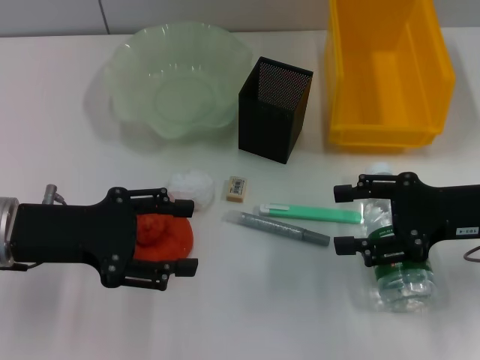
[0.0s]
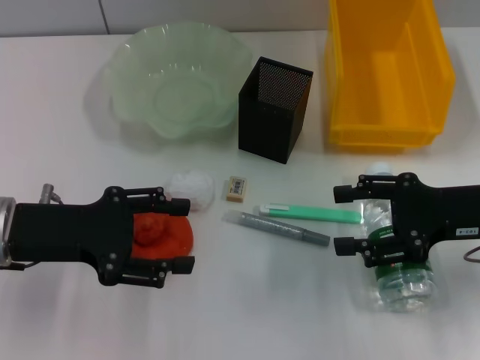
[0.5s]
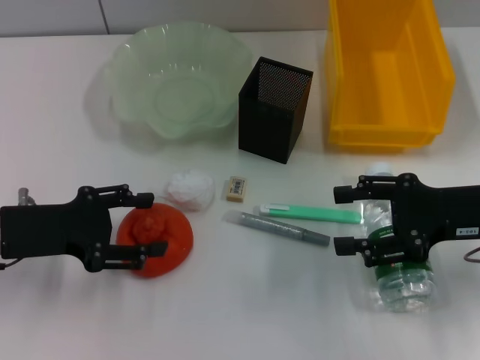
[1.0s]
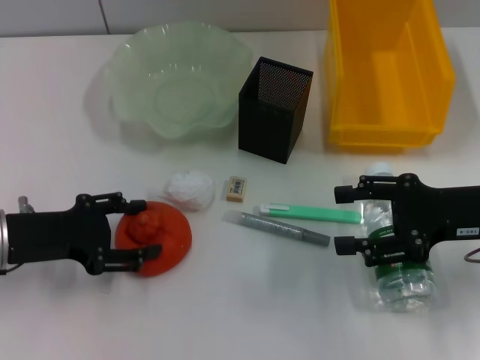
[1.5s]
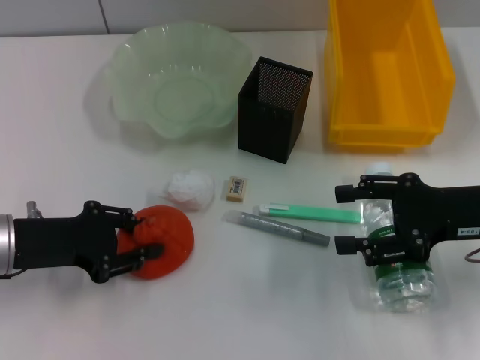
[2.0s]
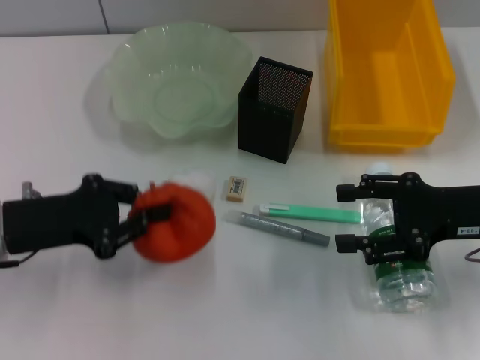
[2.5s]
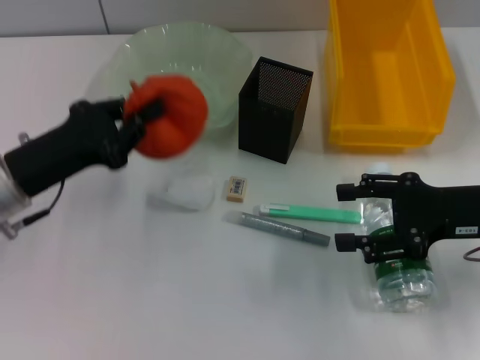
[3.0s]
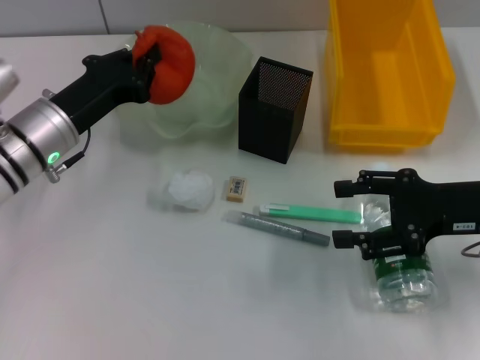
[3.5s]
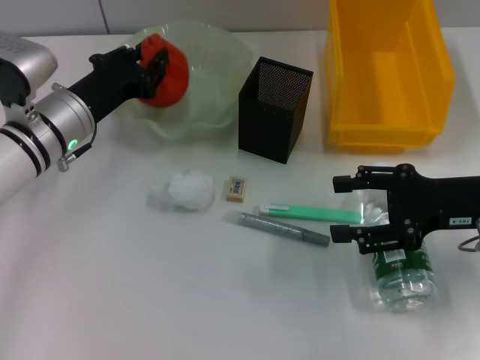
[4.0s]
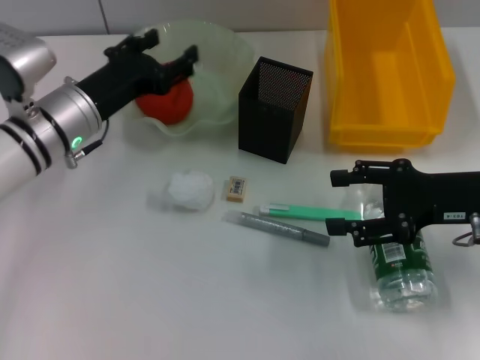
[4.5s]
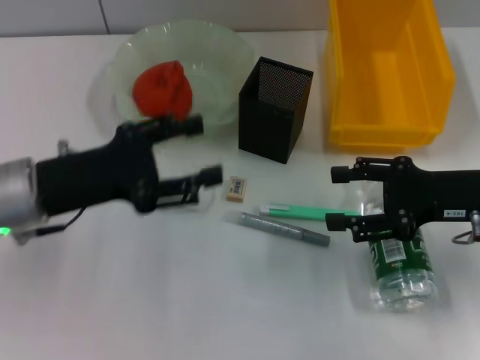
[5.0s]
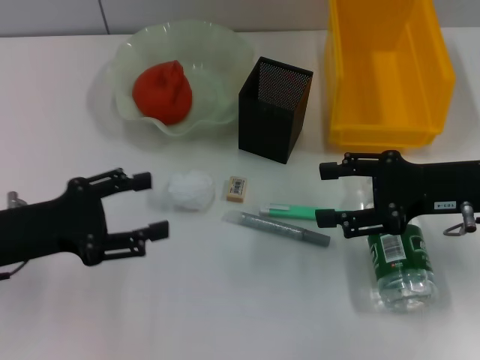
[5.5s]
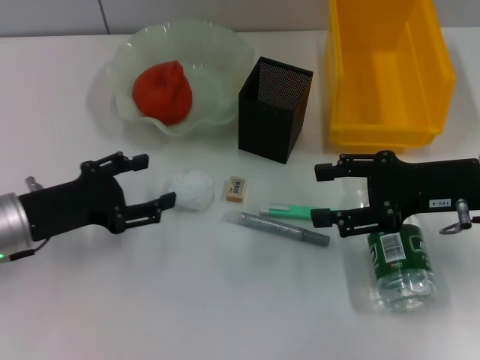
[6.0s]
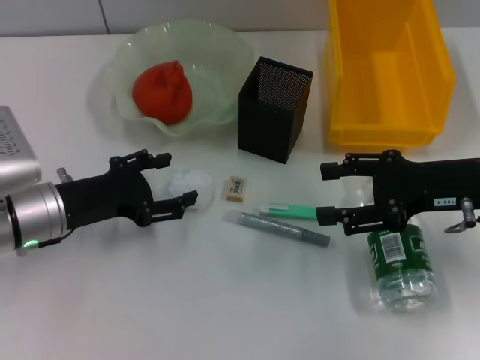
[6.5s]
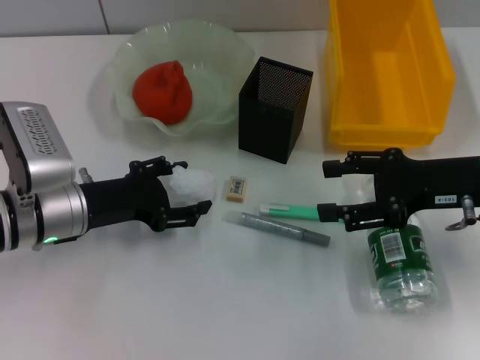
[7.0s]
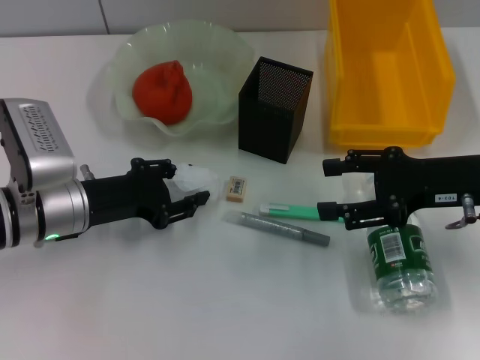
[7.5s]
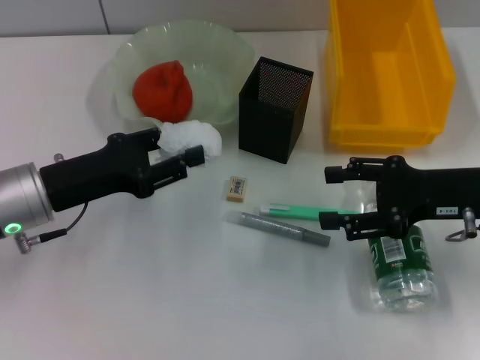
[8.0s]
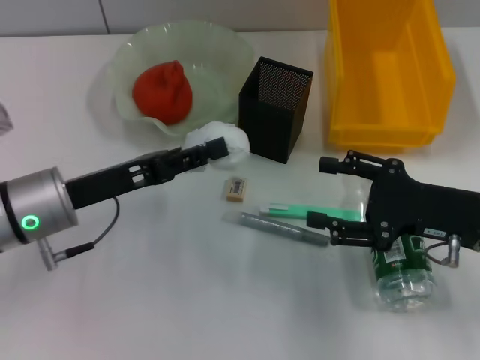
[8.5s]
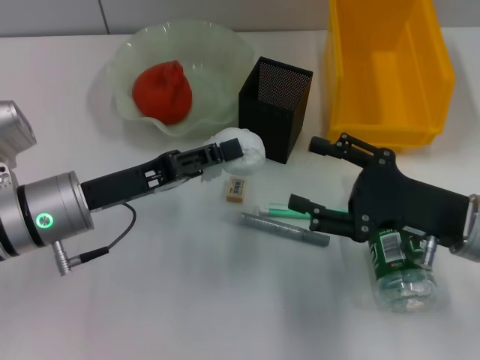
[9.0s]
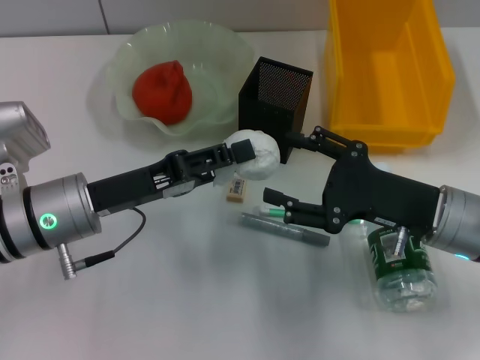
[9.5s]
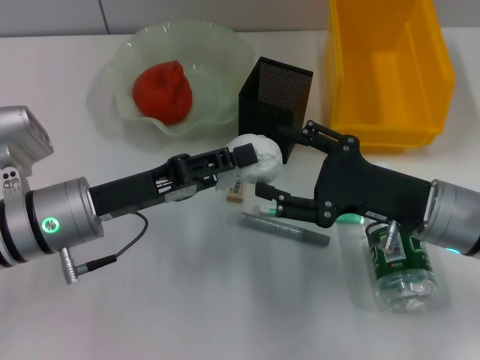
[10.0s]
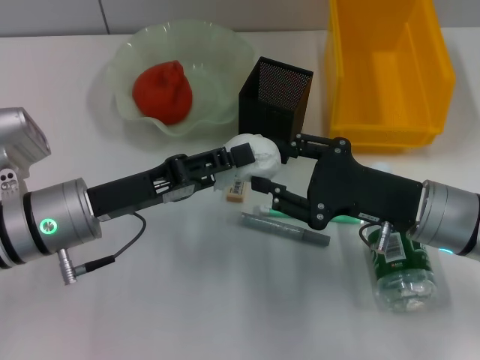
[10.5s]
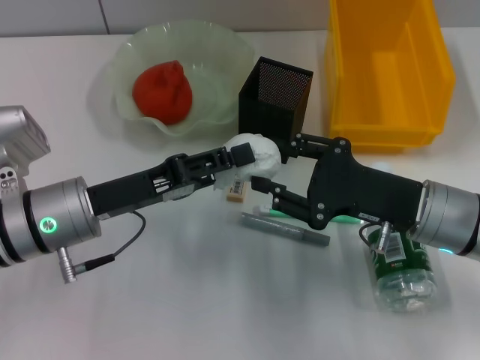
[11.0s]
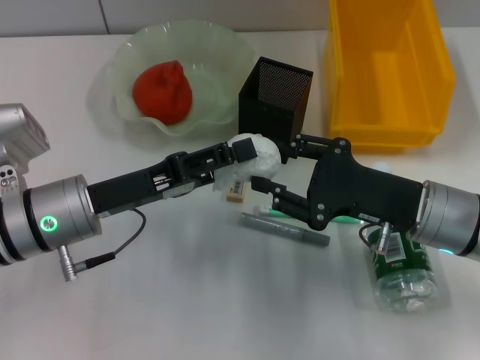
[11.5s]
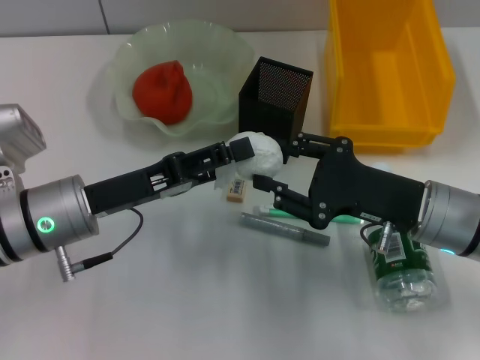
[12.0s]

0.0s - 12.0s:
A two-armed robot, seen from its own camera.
Step, 0.0s - 2.0s: Grab the orange with the left hand.
Step, 2.5s - 4.0s: Place the orange into the fruit bowl with the left hand.
Step, 4.5s - 7.0s: Grab the paper ball with the left hand.
2.0s - 4.0s: The left gripper moves forward and to the right, some 10 cm, and closes up.
4.0s - 6.0s: The left gripper shifts some 10 cm backward and to the left, and opens its fingers.
6.0s - 8.0s: The left gripper closes its fingers.
8.0s - 10.0s: The right gripper travels to the left by approximately 5 cm.
10.0s - 12.0s: The left gripper opens, while the right gripper closes up.

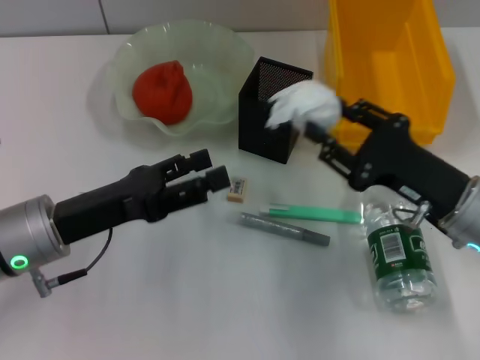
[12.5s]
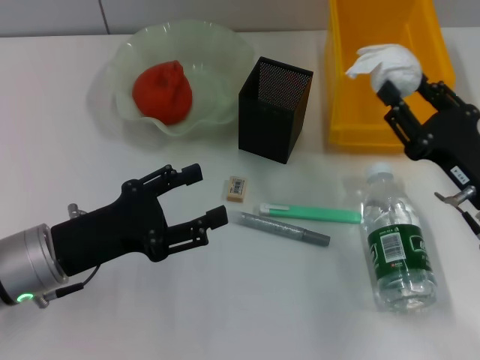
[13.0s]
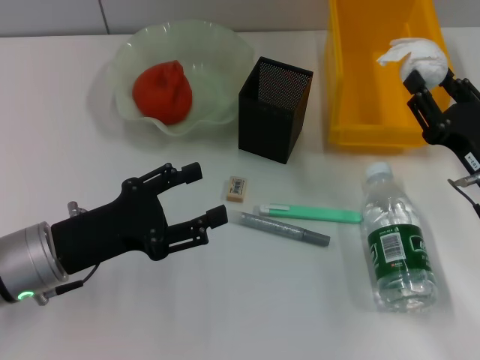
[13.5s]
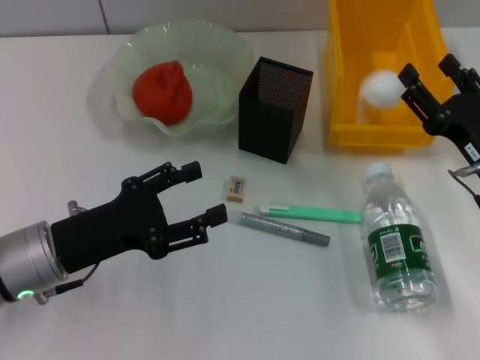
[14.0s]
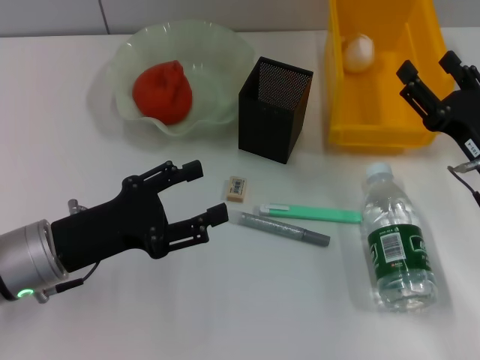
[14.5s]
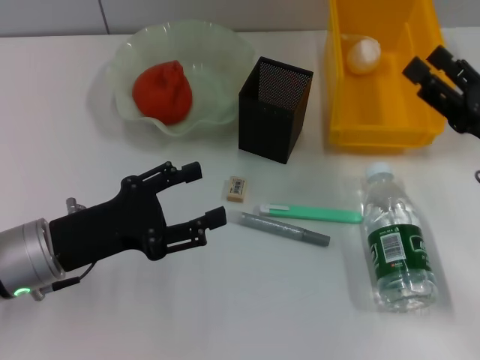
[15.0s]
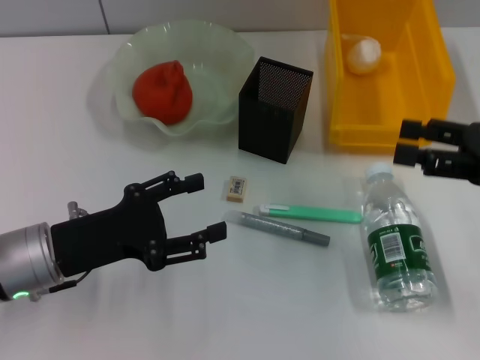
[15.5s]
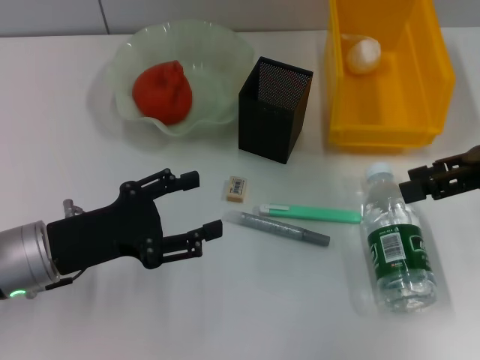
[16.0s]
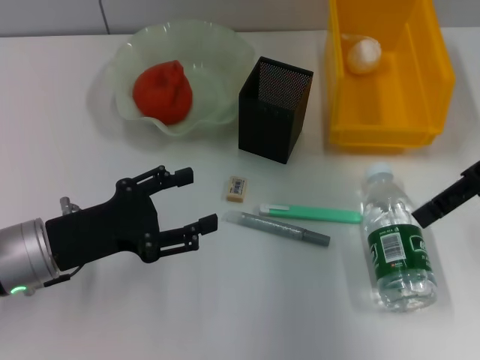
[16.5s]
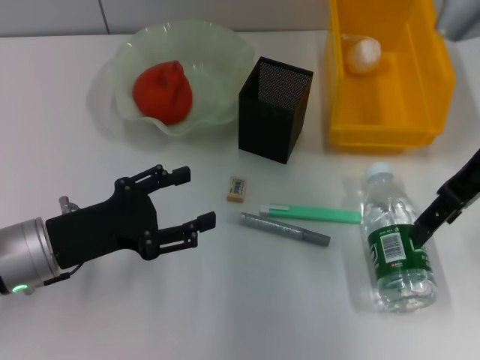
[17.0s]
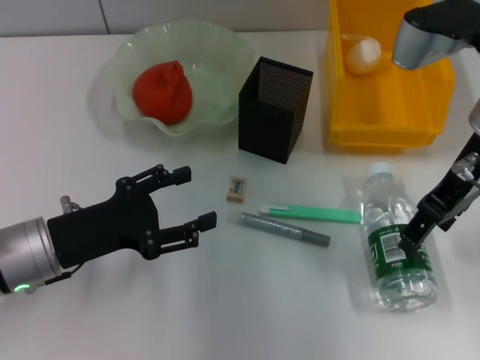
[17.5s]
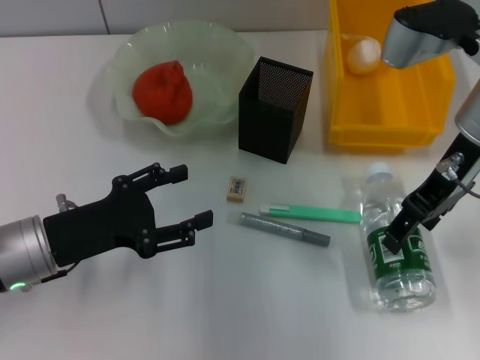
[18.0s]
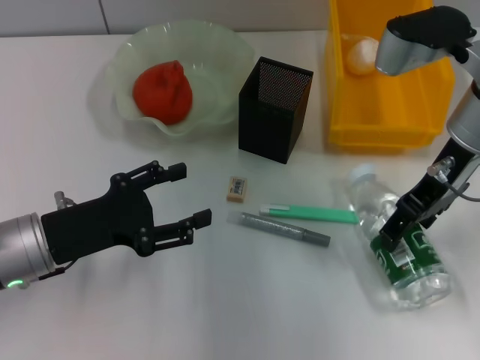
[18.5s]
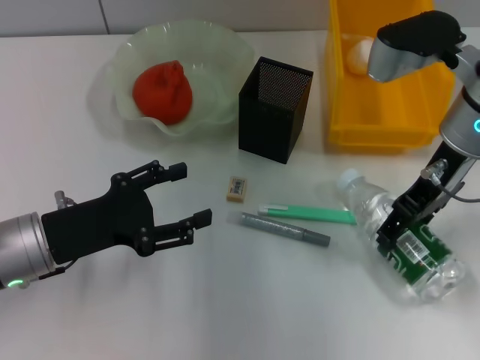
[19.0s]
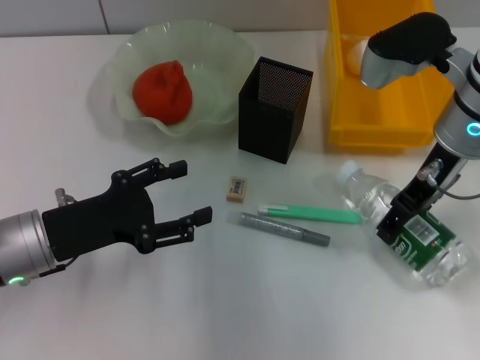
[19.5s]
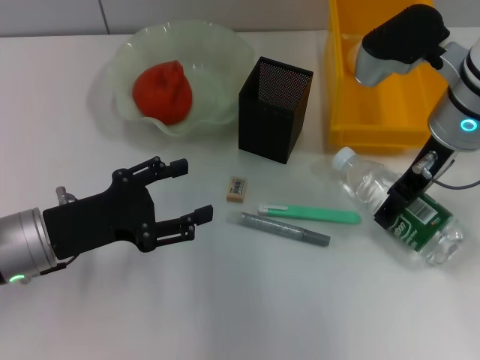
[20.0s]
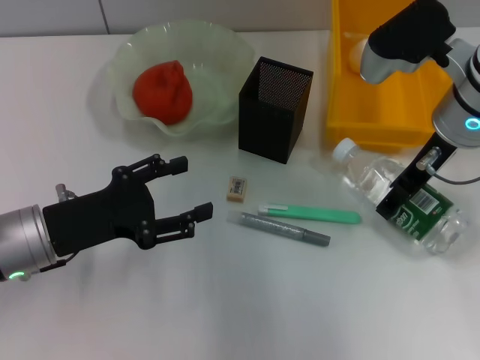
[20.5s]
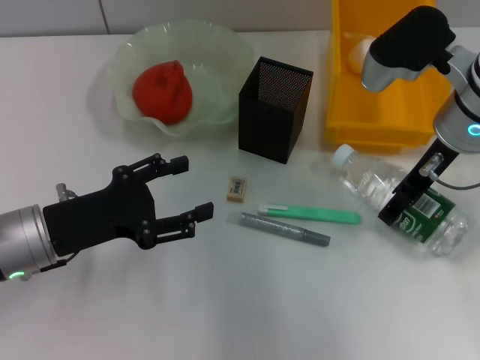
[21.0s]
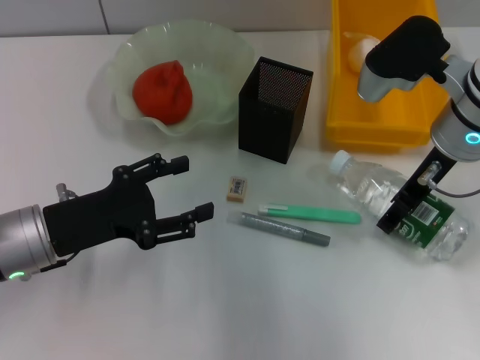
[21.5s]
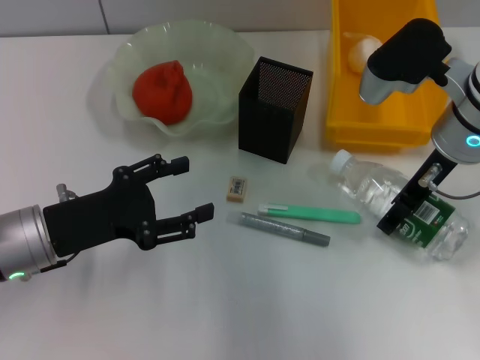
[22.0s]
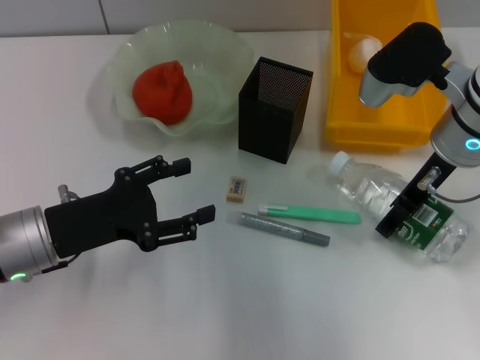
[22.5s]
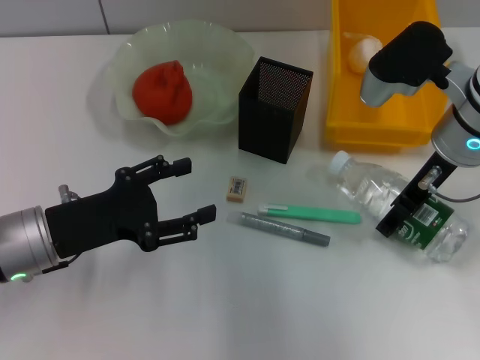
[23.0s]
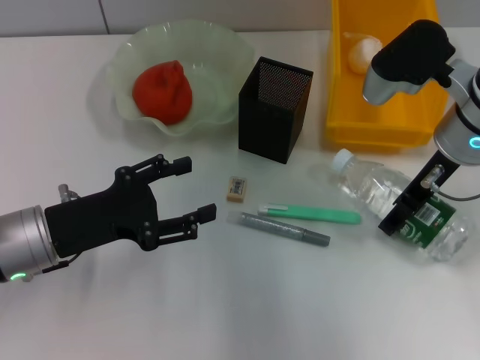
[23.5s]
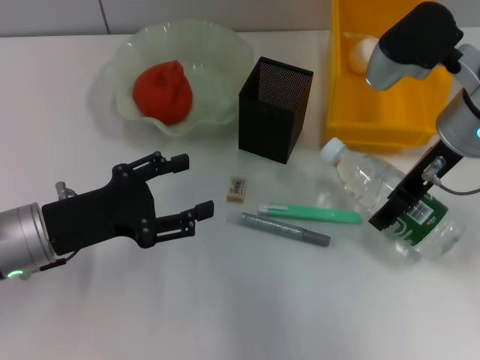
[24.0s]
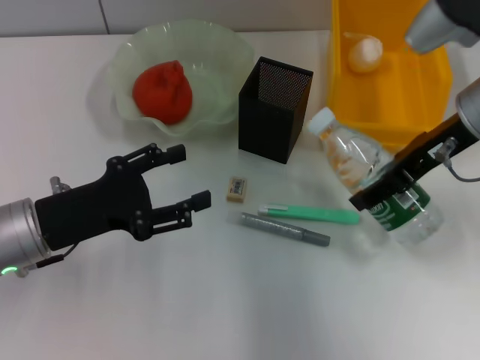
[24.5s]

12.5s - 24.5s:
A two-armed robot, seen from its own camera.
Step, 12.5s - 14.0s: Place the paper ball into the trash can with the right hand.
Step, 14.5s - 23.0s: Grab the water bottle with the right hand.
12.5s - 14.5s: The right gripper opens.
14.5s - 16.5s: The right gripper heads upward and forward, covering about 20 cm.
16.5s - 18.5s: The right gripper shifts some 10 cm to the left.
18.5s - 22.5s: There are only small adjustments of the grippers.

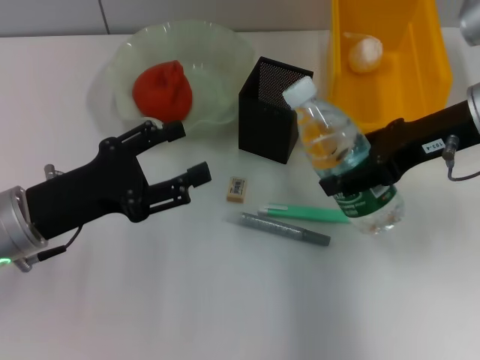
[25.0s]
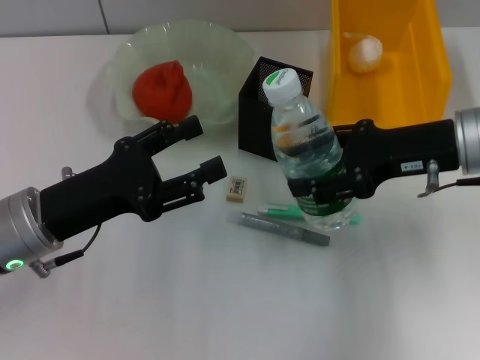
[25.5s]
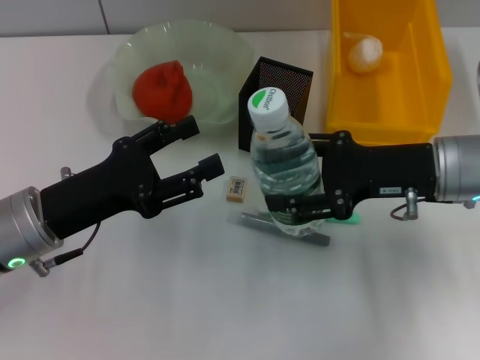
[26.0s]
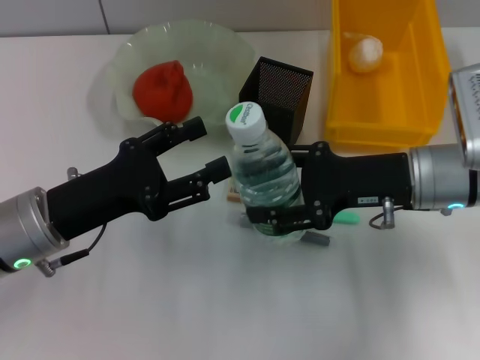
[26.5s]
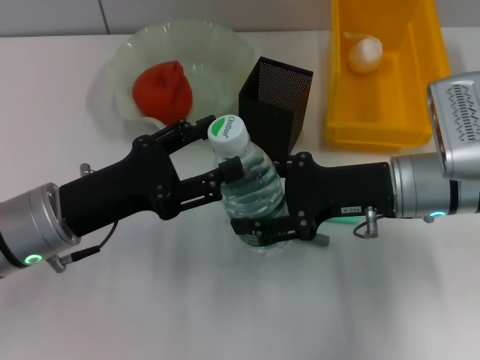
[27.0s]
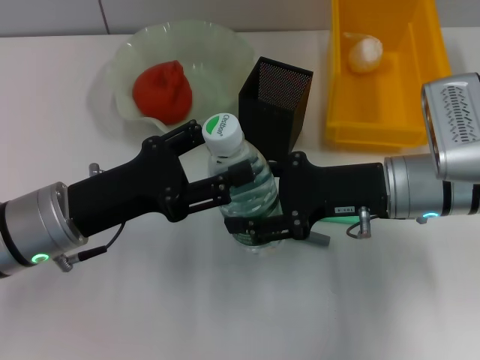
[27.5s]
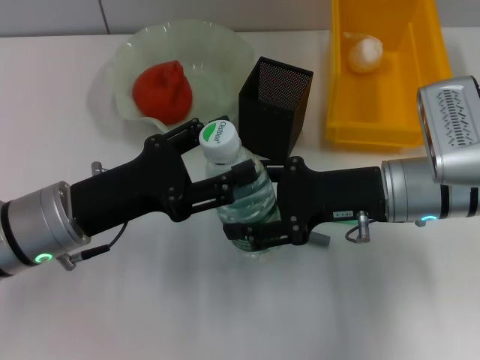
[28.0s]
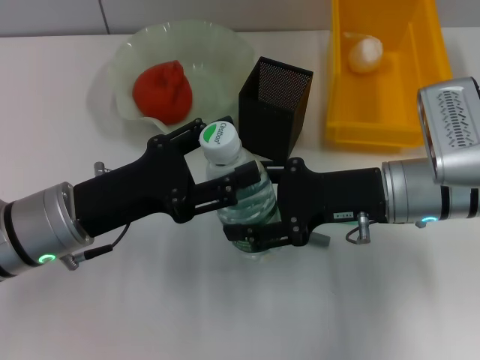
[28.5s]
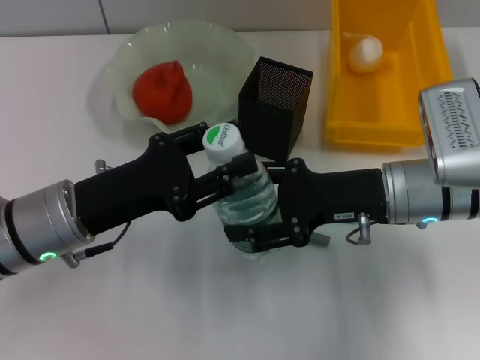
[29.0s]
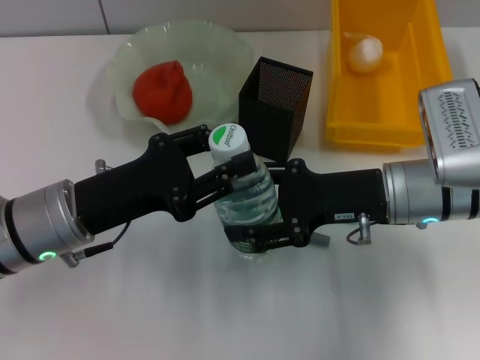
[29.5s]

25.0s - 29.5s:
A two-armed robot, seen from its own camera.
25.0s - 27.0s: The right gripper heads downward, covering roughly 10 cm.
27.0s - 29.5s: The left gripper closes its fingers.
